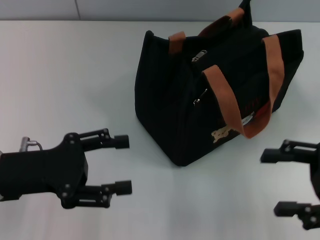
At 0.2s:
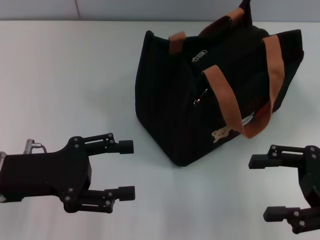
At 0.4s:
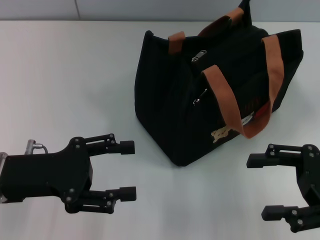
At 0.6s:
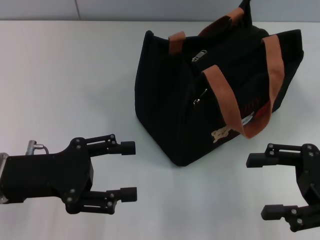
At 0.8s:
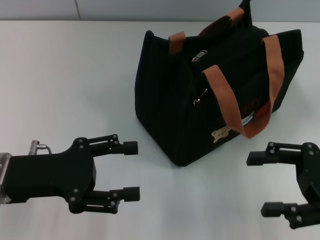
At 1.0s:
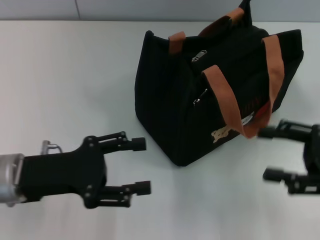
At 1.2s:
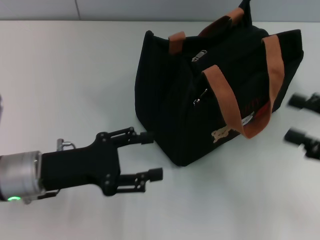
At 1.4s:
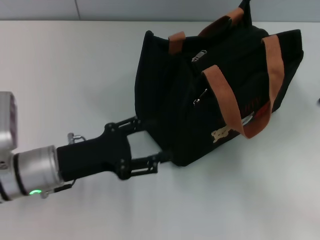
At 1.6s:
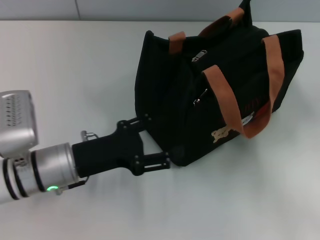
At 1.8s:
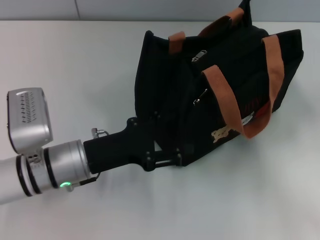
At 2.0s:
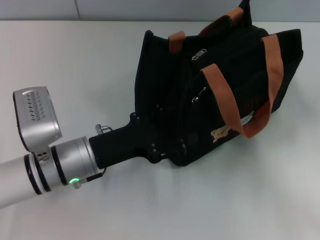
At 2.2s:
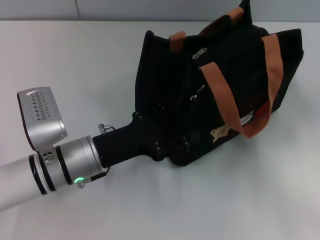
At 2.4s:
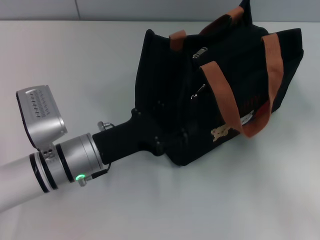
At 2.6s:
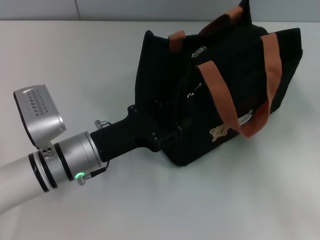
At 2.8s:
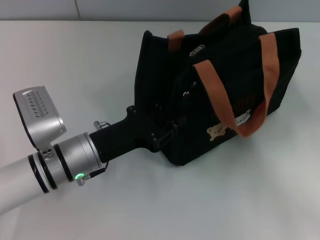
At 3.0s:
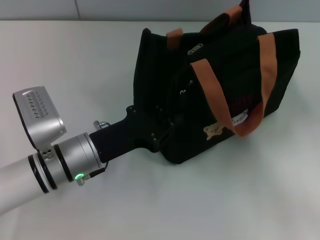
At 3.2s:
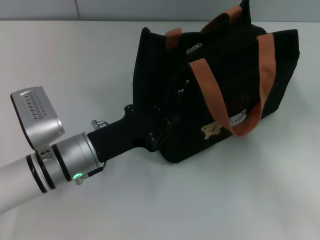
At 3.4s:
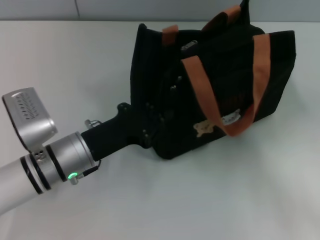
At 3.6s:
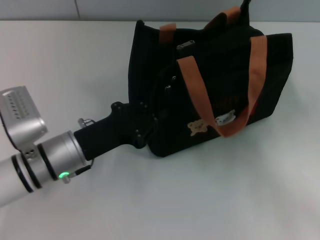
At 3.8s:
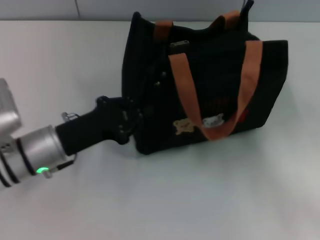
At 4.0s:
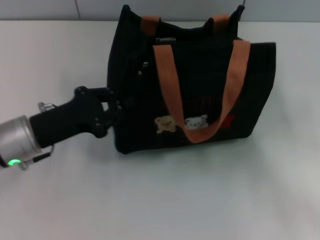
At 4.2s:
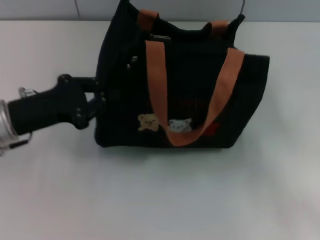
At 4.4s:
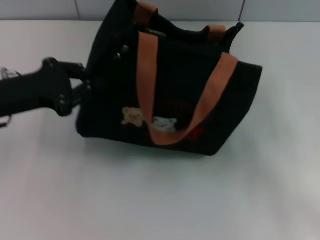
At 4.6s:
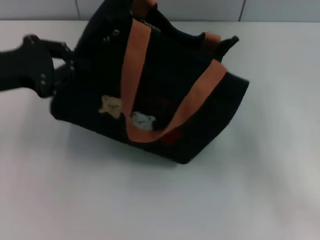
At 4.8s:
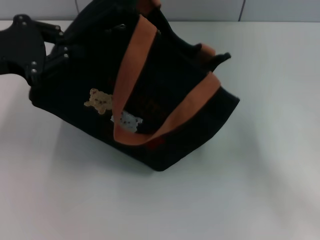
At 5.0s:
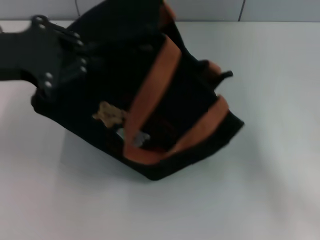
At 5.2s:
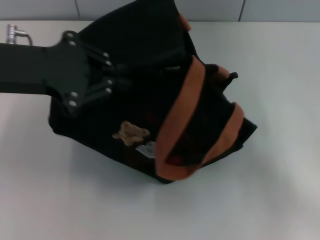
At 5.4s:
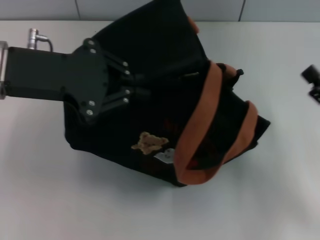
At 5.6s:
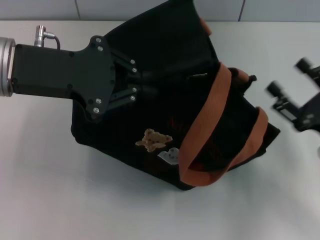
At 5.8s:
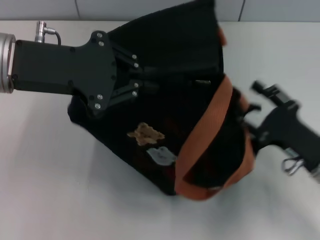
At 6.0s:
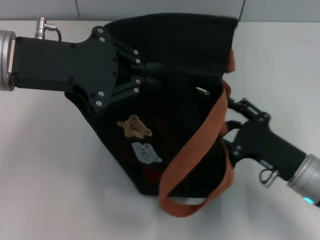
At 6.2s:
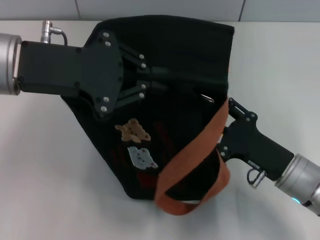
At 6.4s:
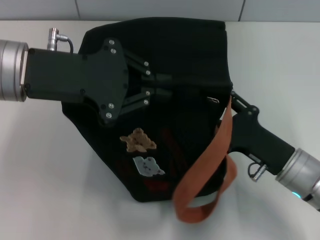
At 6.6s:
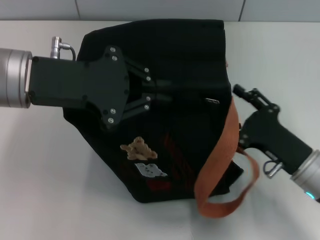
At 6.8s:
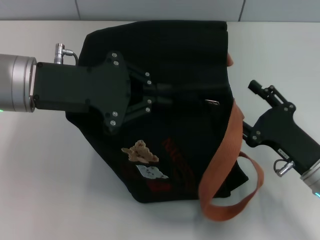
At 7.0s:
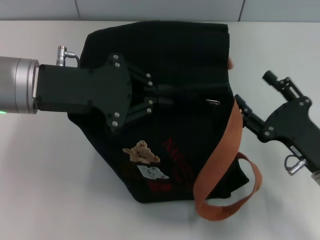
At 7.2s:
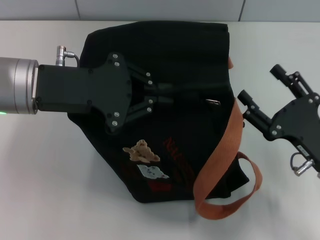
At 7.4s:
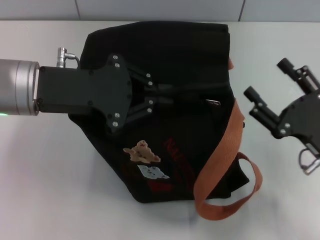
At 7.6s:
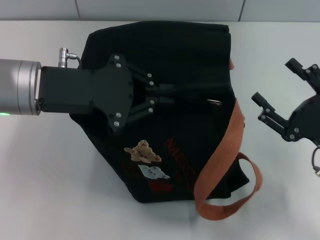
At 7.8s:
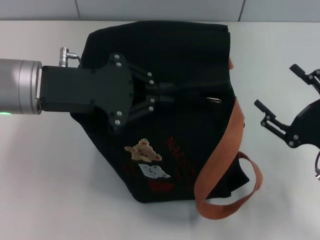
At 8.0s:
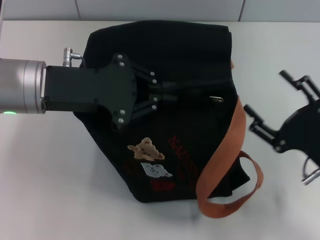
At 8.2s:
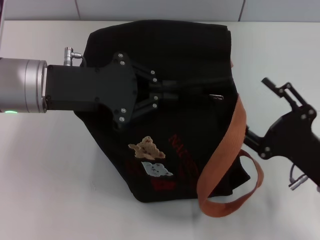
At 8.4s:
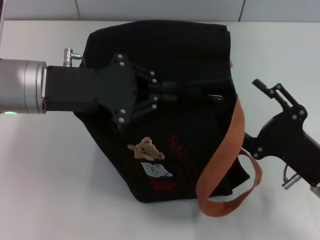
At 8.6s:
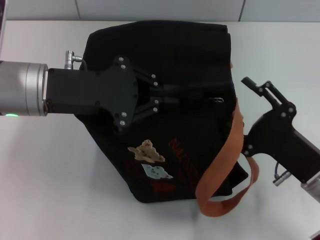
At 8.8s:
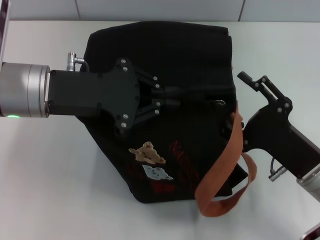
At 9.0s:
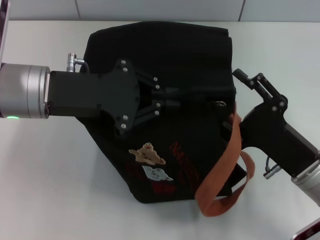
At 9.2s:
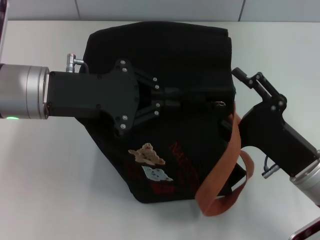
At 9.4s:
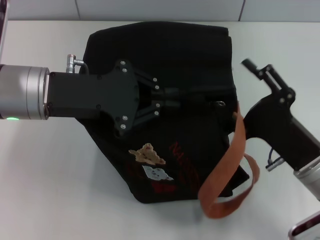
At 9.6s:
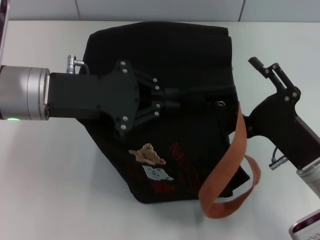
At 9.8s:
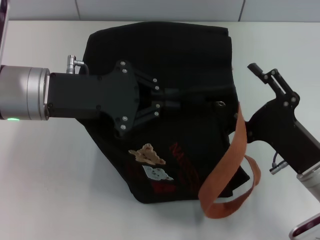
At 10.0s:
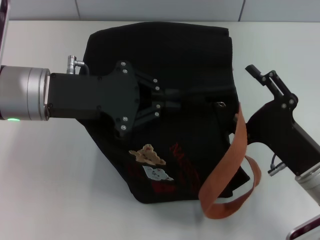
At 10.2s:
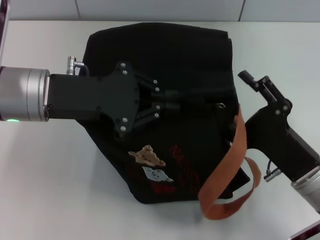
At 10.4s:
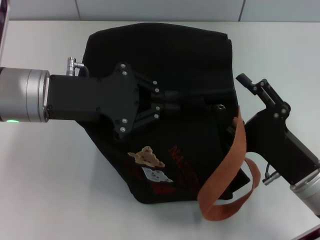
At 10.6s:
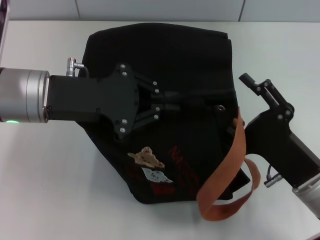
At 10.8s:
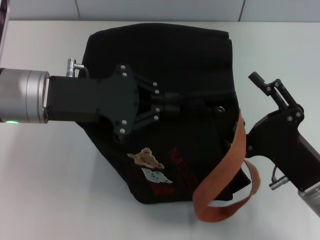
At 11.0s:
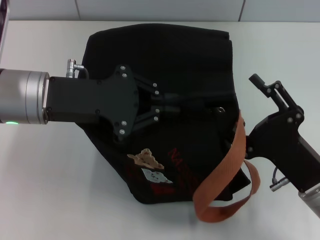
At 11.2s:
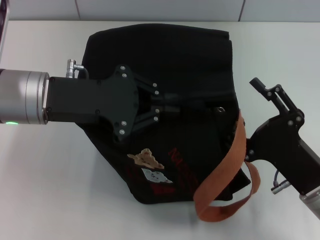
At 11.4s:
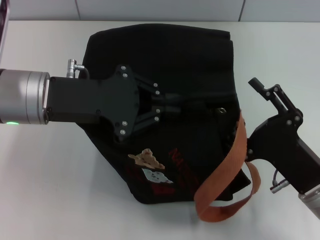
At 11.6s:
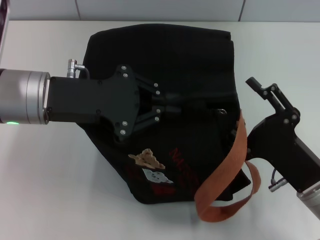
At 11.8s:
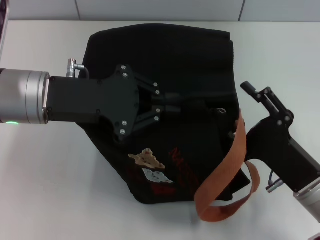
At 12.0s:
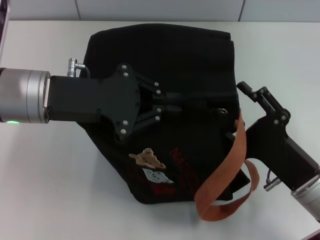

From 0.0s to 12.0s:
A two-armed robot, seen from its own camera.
From 0.0s to 1.6s: The right gripper goes some 5 cm to the right. Meanwhile the left gripper shifts approximately 10 cm to the right and downward.
From 1.6s to 3.0s: The left gripper closes.
From 3.0s to 4.4s: The left gripper shifts roughly 15 cm to the left and upward, and closes its fingers.
From 4.4s to 6.0s: The left gripper is displaced upward and to the right by approximately 10 cm; the right gripper travels to the left and downward by roughly 15 cm.
From 6.0s to 7.6s: The right gripper goes about 5 cm to the right.
From 7.6s to 9.0s: The right gripper shifts roughly 5 cm to the left.
From 9.0s to 12.0s: The grippers stay close to where they were, moving slightly.

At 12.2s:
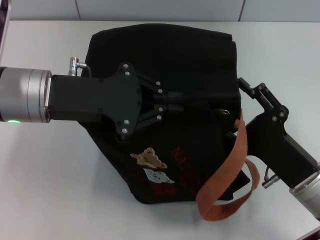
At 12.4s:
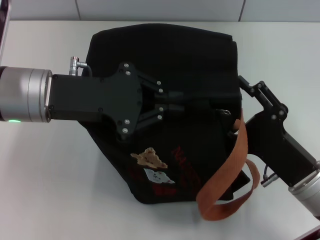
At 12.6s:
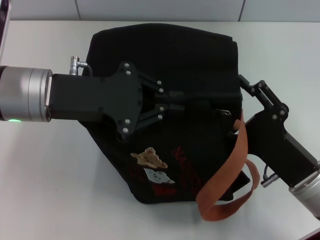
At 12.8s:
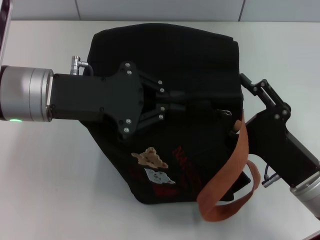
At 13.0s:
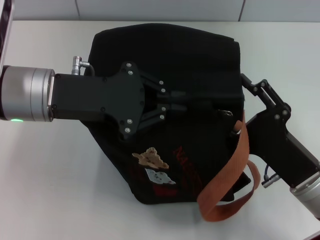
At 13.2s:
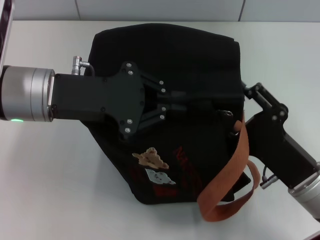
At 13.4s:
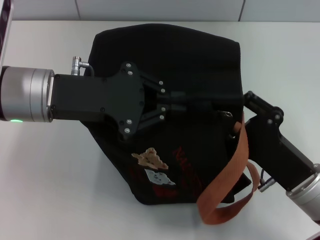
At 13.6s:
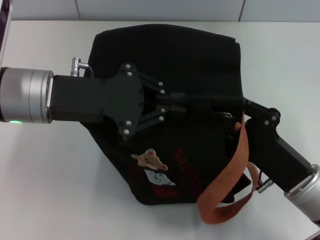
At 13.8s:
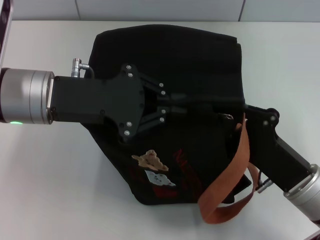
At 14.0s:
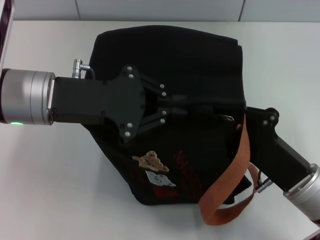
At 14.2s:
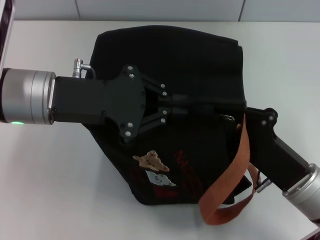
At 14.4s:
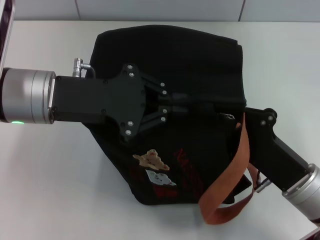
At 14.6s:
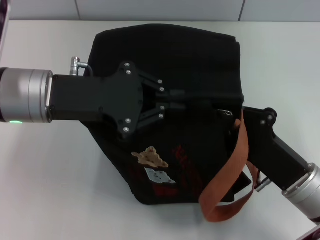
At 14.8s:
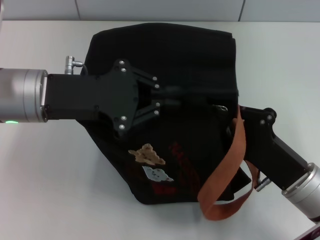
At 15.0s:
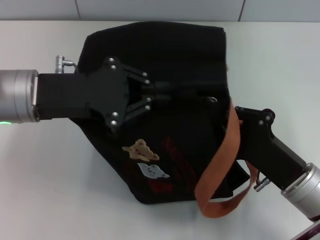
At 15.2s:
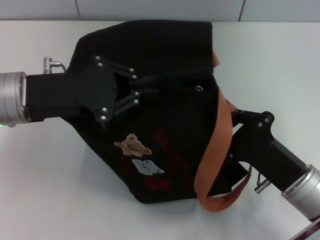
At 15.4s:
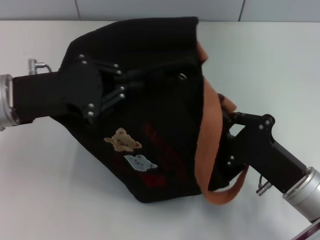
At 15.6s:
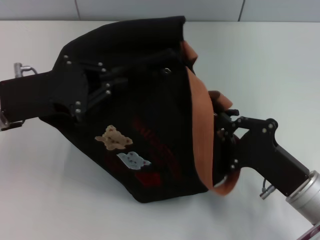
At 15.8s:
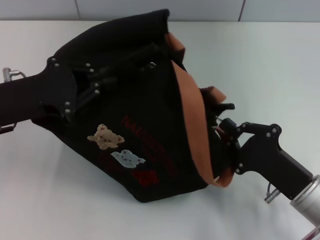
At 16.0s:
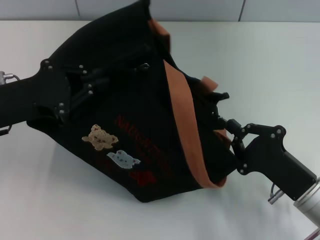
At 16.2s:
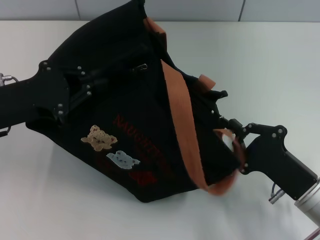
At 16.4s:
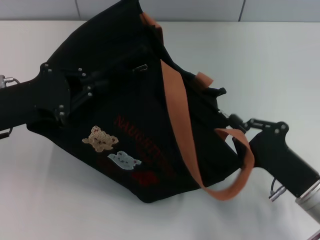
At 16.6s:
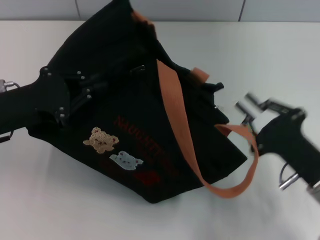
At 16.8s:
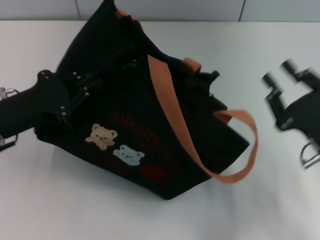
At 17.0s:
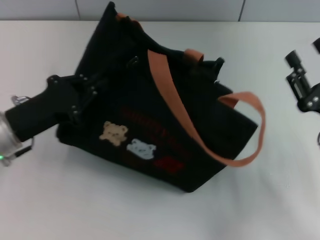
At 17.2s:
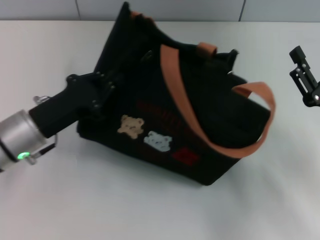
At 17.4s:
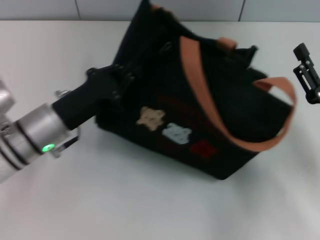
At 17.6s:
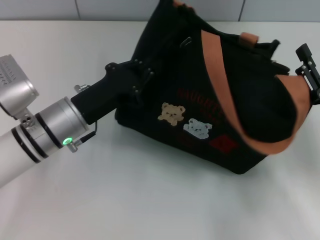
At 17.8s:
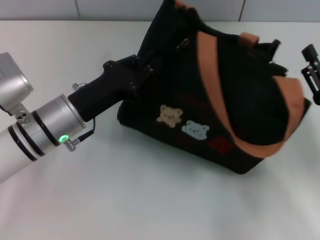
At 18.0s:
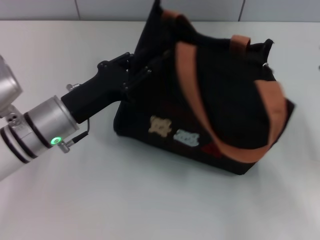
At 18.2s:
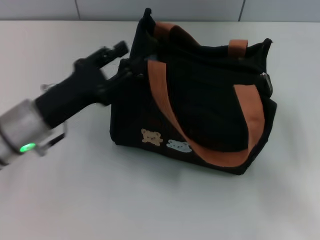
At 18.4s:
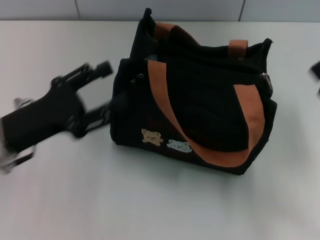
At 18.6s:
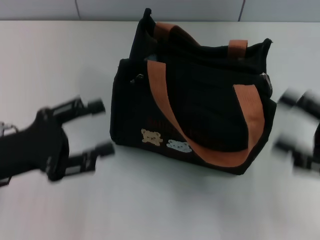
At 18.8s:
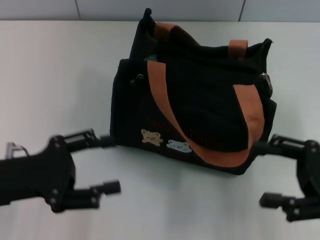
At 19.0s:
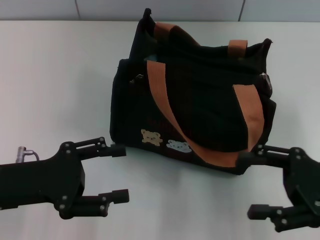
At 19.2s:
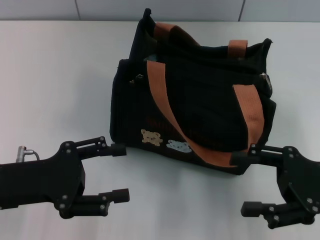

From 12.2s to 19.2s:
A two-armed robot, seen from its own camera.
Step, from 12.2s to 16.4s: Pull open the zipper with your right hand.
Step, from 16.6s to 18.0s: Grab the bag with your left hand.
From 12.2s to 13.6s: Both grippers stay about where they are.
From 13.6s to 15.0s: The right gripper closes up.
From 15.0s to 16.4s: The left gripper moves to the left, roughly 5 cm.
From 16.4s to 17.8s: The left gripper travels to the right and downward by some 10 cm; the right gripper travels to the right by roughly 5 cm, and opens.
From 17.8s to 19.2s: The left gripper is displaced backward and to the left by about 10 cm, and opens up.

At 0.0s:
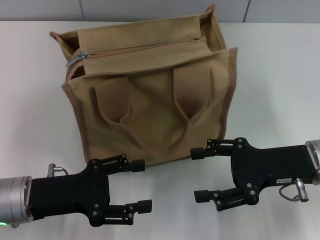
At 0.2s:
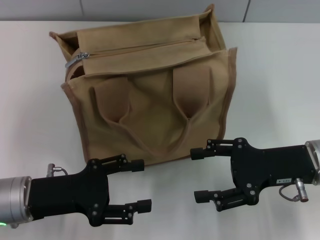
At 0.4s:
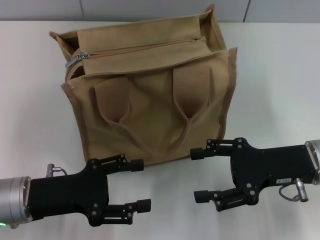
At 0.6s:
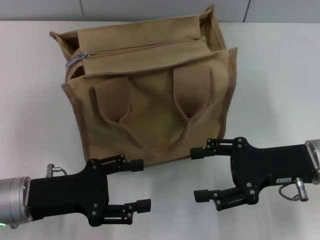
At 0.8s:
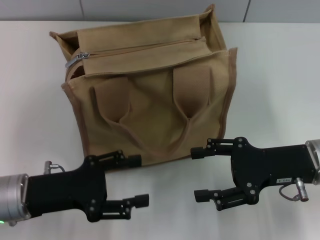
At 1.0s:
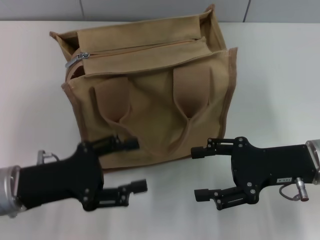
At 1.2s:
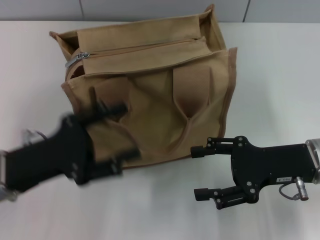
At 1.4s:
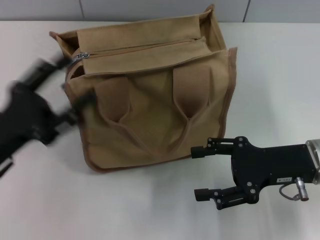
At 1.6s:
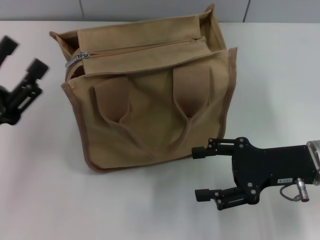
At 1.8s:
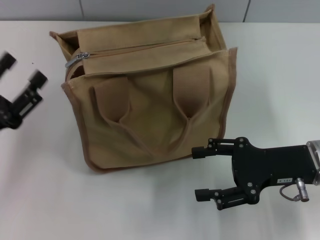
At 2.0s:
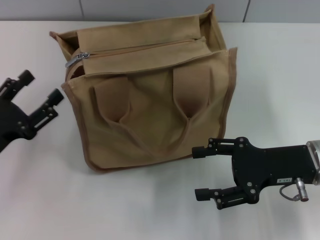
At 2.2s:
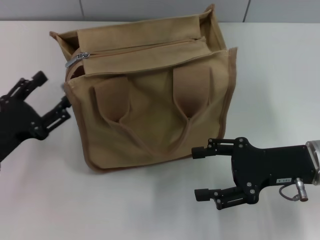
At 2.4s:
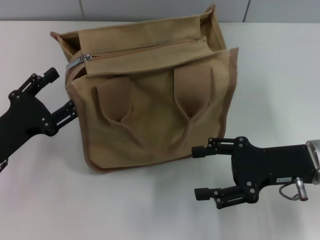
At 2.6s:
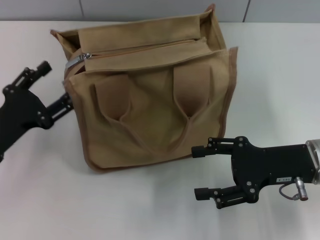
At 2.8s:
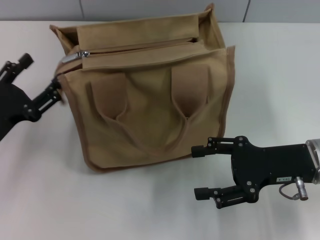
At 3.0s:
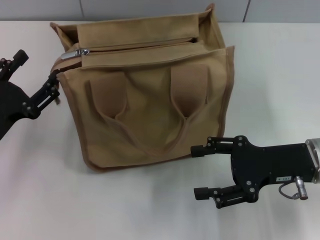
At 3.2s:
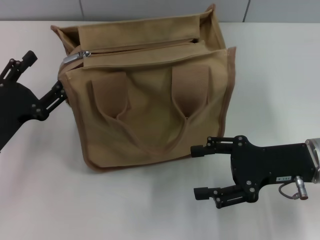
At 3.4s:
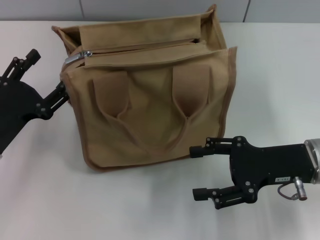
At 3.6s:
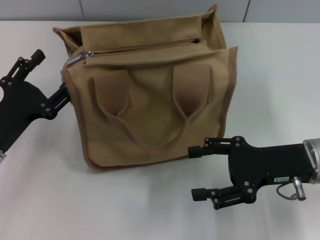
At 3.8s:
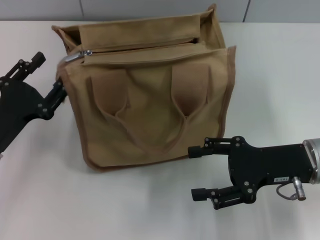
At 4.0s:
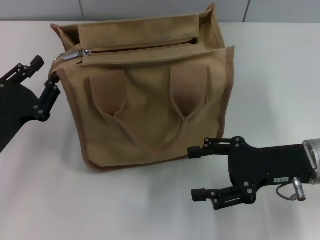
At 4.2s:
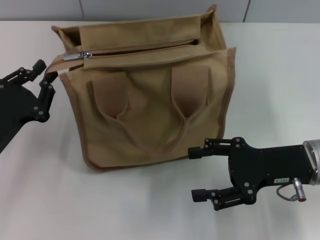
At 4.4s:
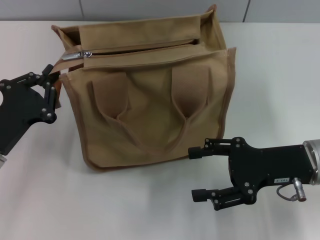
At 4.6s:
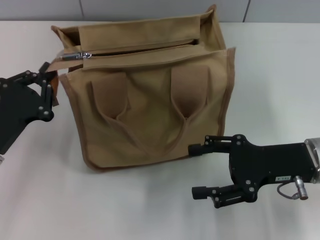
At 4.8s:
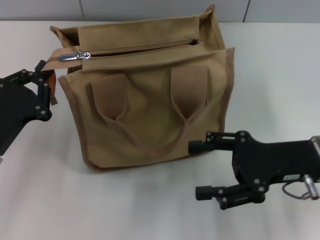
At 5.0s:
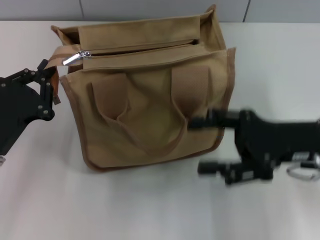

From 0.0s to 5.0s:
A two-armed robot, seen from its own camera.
From 0.0s to 1.6s: The left gripper ends up about 5 cm from where it was.
From 3.4s to 5.0s: The left gripper closes.
